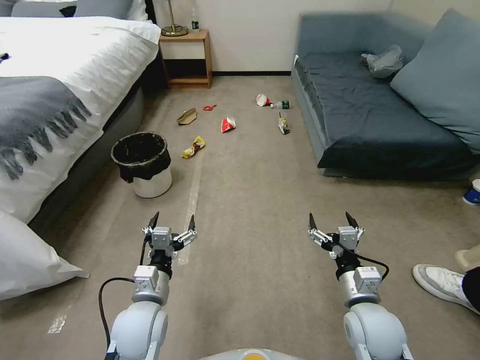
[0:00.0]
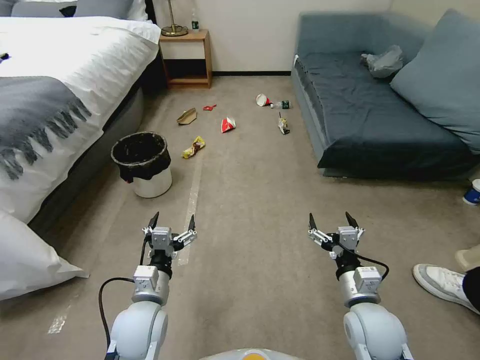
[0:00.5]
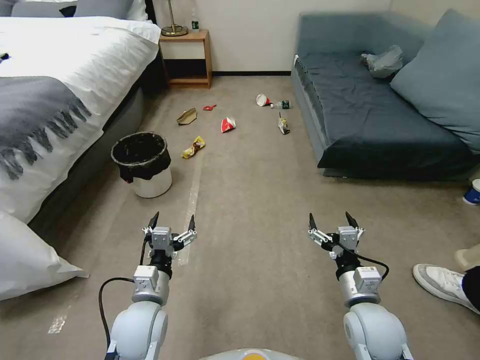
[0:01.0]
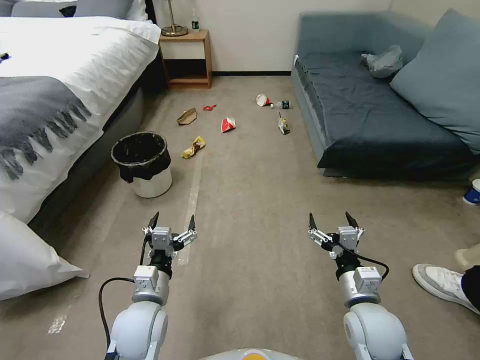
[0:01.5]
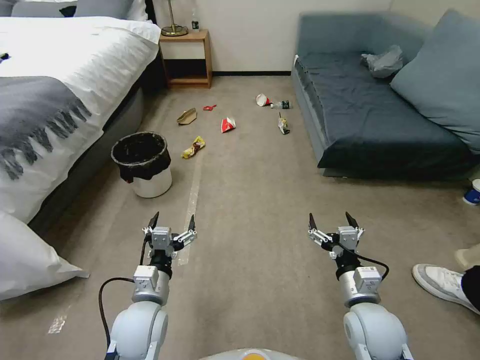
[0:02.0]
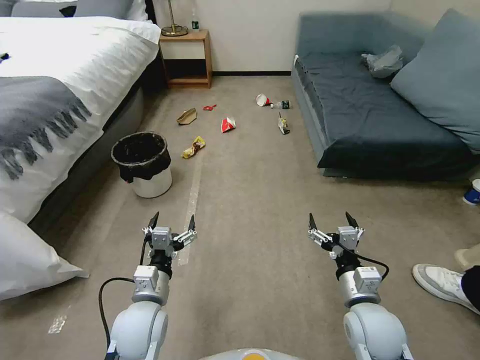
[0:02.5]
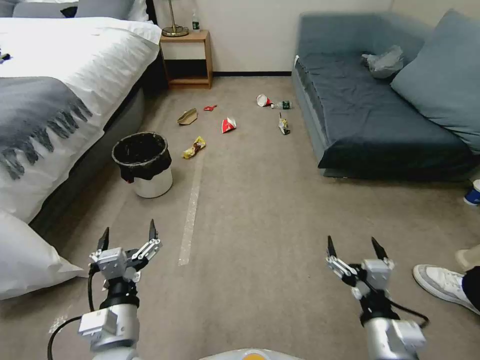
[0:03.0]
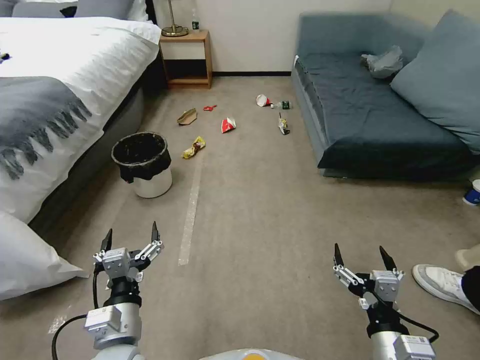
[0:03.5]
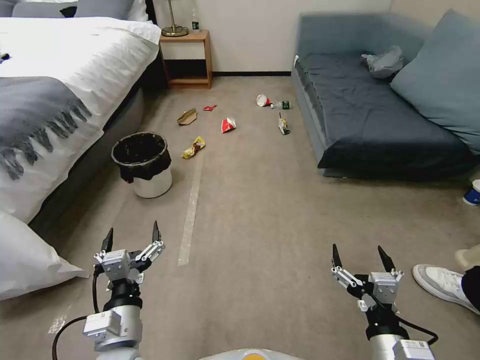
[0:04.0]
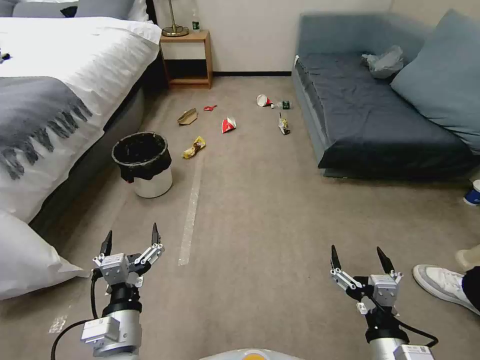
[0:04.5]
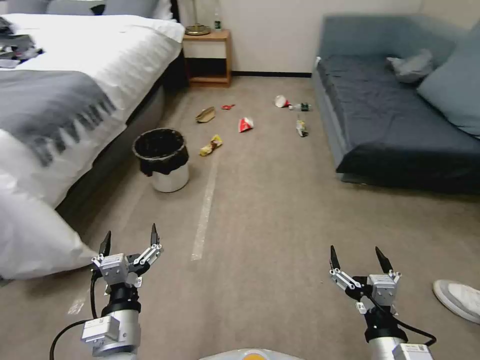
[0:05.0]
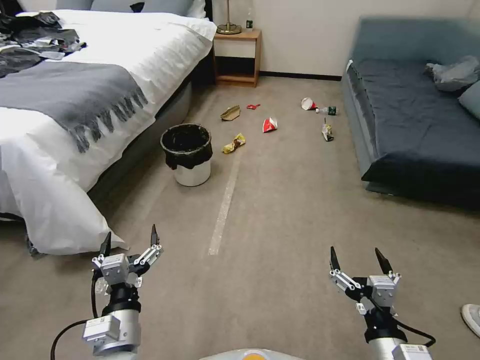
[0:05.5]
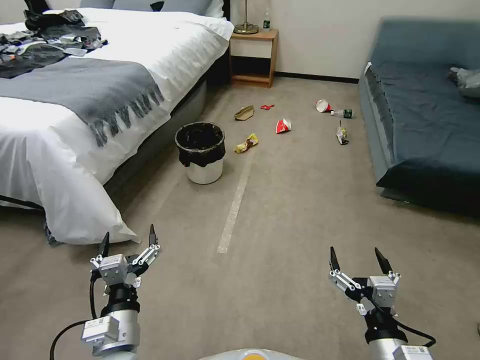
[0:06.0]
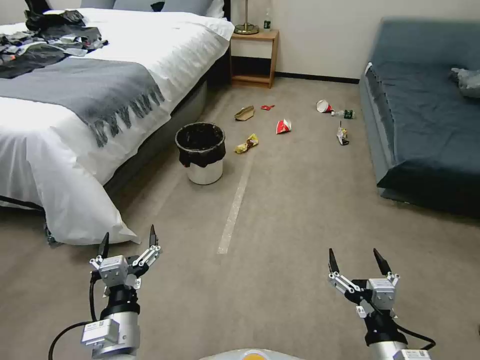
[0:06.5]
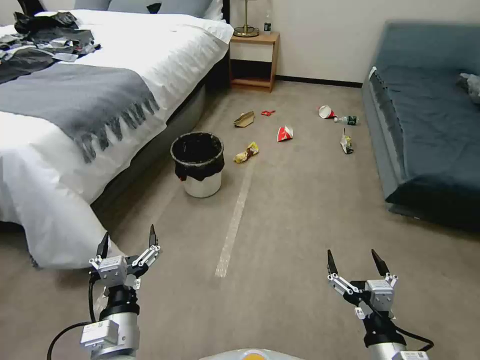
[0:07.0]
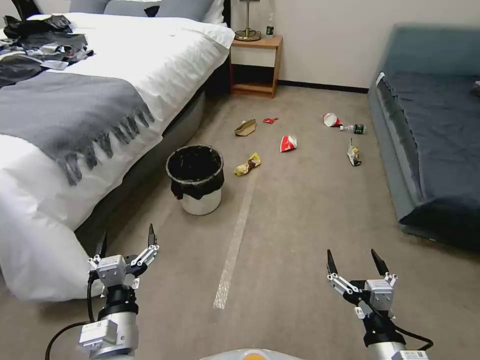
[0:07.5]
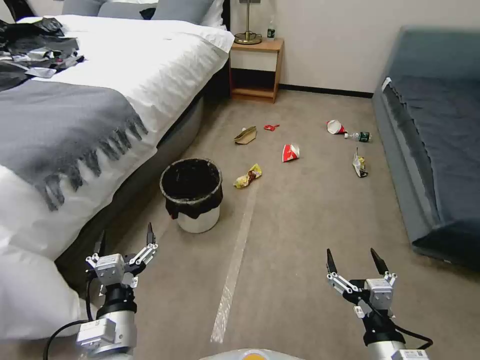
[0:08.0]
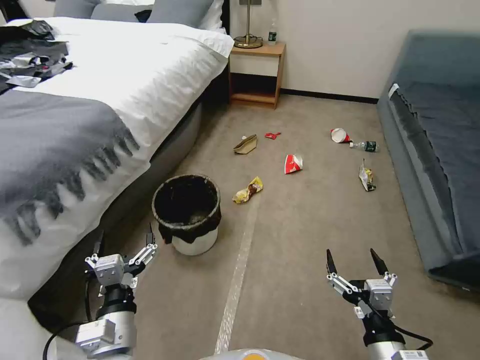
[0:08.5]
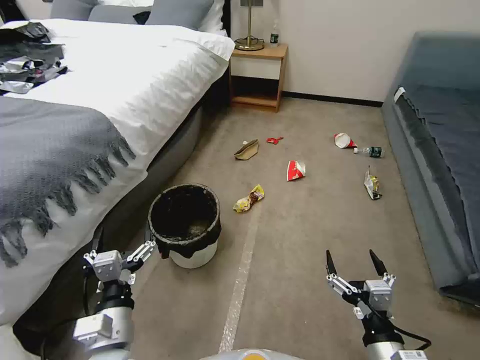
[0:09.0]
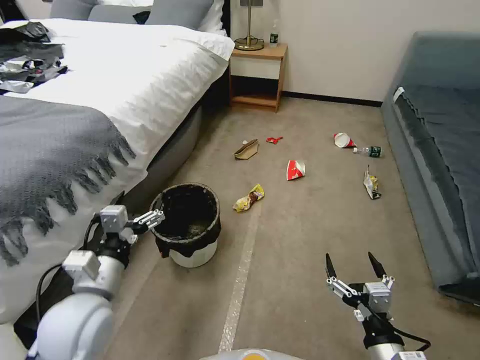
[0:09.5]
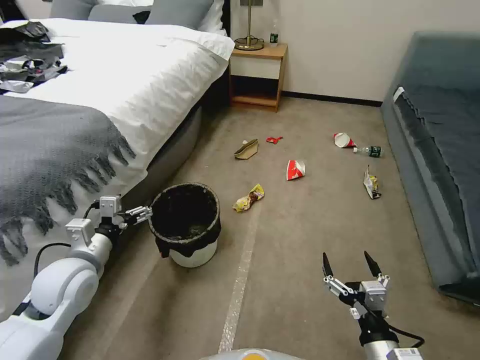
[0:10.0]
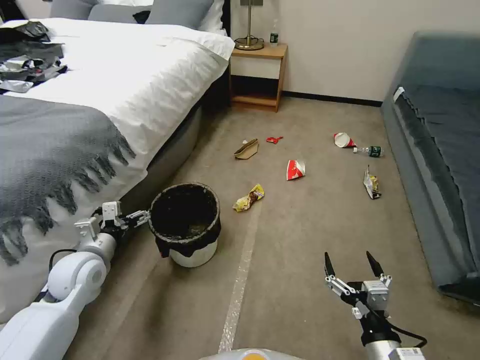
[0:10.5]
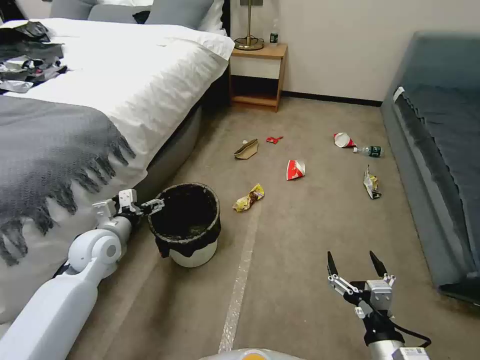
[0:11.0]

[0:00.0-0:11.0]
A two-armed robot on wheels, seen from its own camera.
Task of the whole recording: Pick up the trash can from the floor.
0:02.0 to 0:03.5: The left gripper is displaced backward by roughly 10 cm, while the right gripper goes approximately 10 cm backward.
0:09.0 to 0:11.0: The left gripper is displaced forward and to the left by about 25 cm.

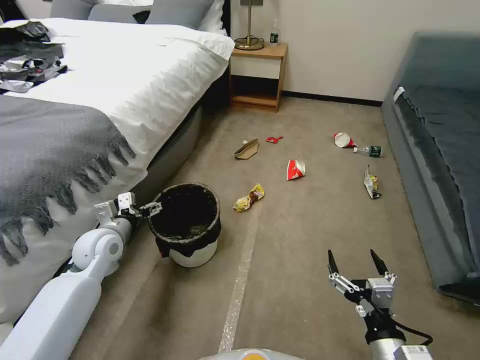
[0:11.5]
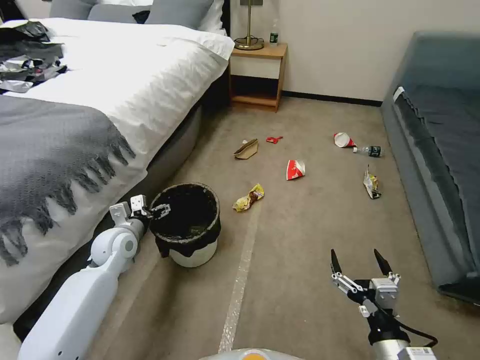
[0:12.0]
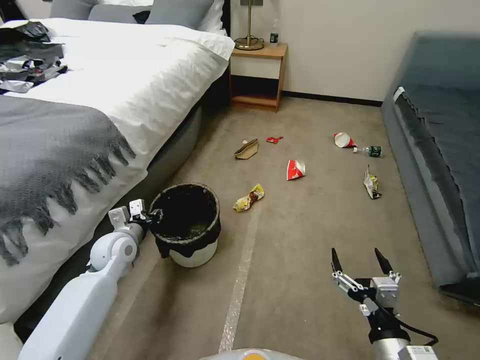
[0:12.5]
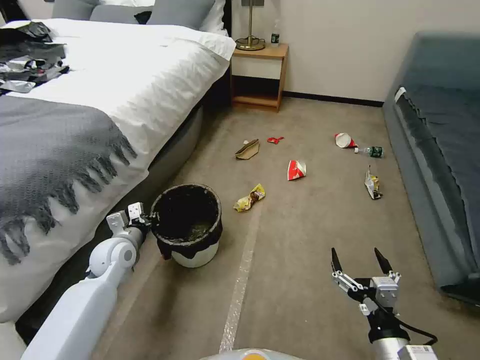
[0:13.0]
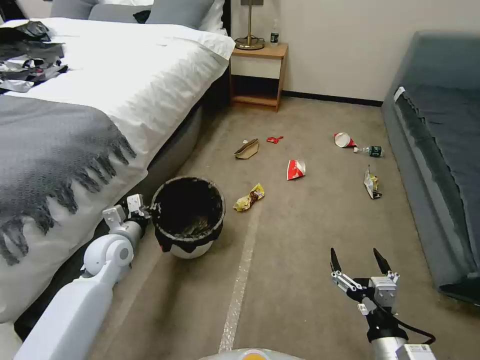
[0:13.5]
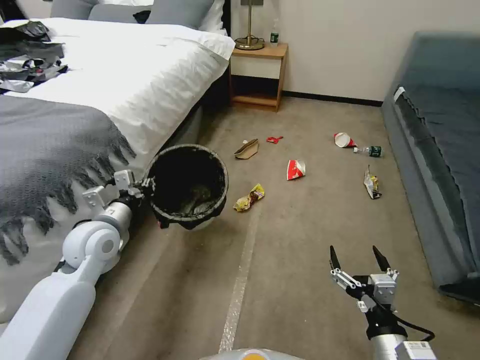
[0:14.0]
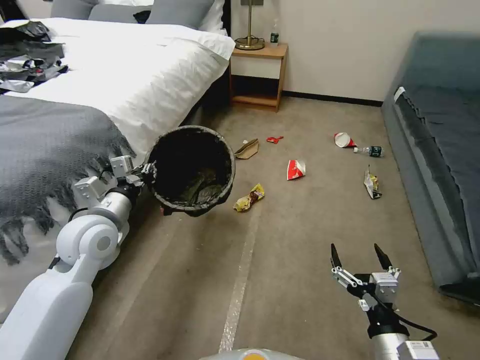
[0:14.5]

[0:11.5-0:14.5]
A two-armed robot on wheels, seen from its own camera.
Task of the whole recording: Pick up the trash can from the floor.
0:11.5 to 0:13.0: The left gripper closes up.
0:13.0 to 0:14.5: The left gripper is displaced upward by about 15 cm.
